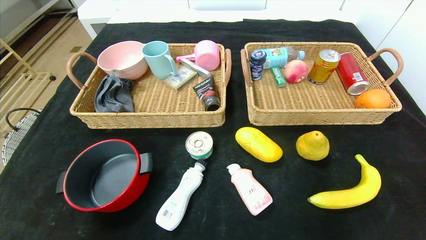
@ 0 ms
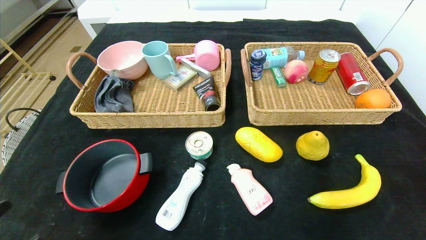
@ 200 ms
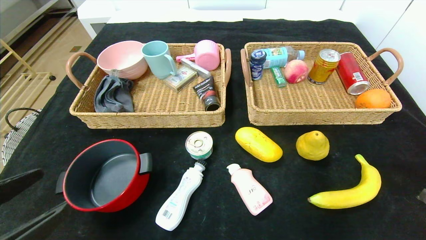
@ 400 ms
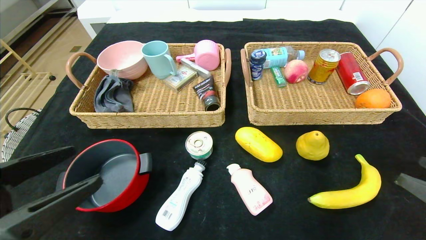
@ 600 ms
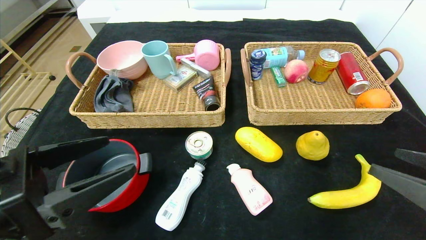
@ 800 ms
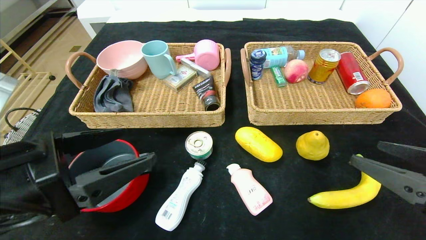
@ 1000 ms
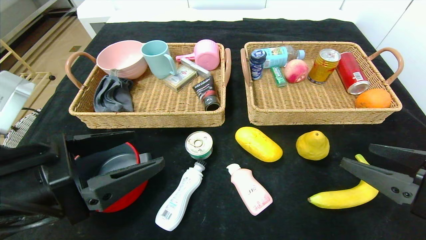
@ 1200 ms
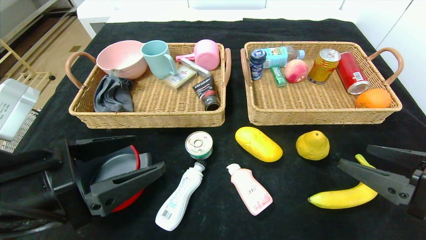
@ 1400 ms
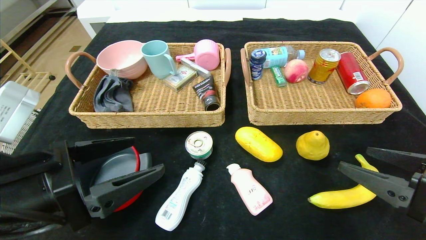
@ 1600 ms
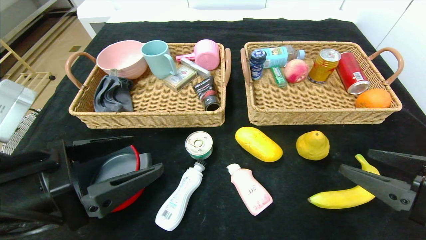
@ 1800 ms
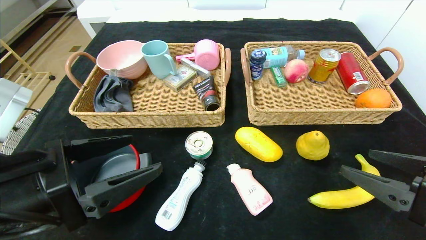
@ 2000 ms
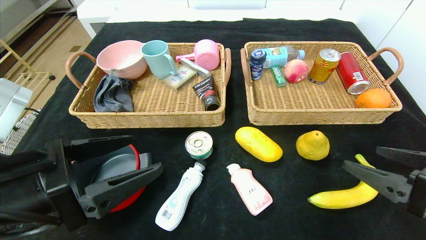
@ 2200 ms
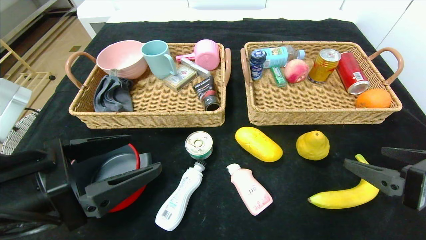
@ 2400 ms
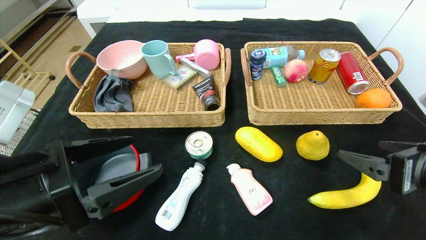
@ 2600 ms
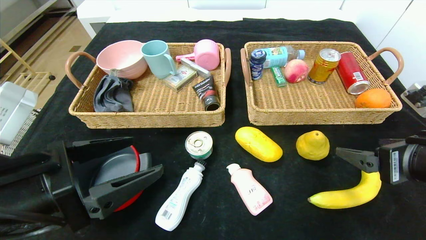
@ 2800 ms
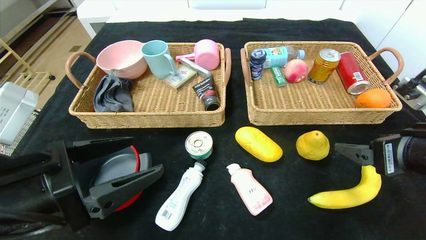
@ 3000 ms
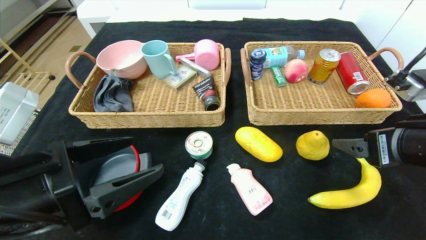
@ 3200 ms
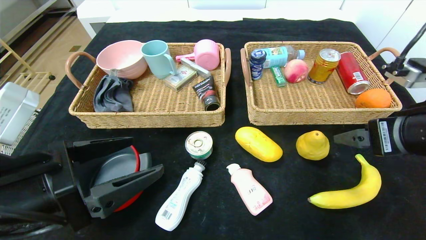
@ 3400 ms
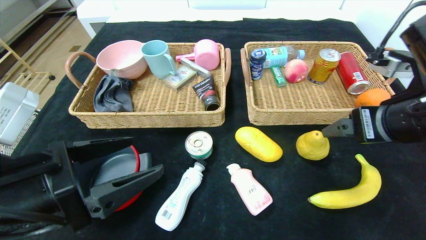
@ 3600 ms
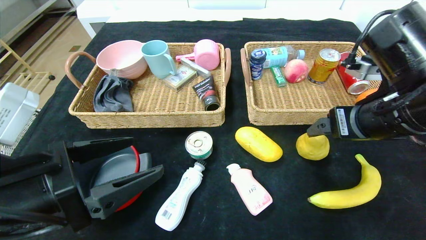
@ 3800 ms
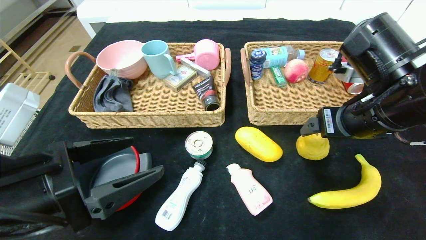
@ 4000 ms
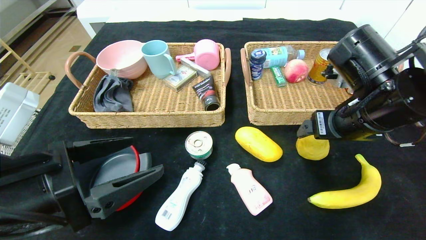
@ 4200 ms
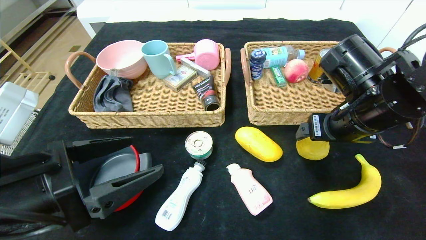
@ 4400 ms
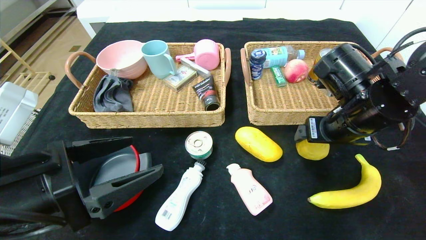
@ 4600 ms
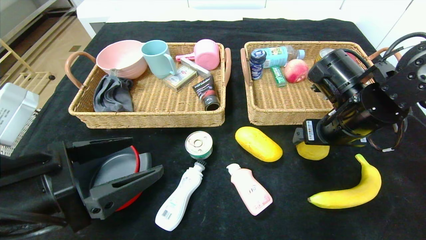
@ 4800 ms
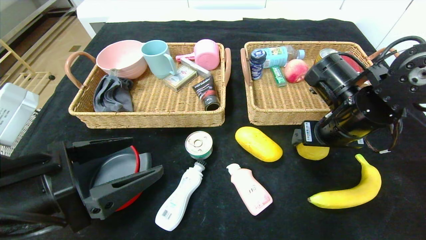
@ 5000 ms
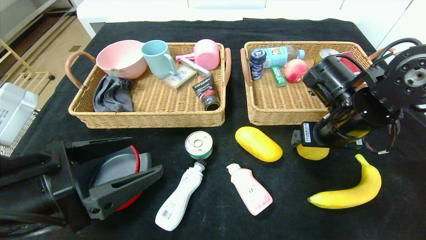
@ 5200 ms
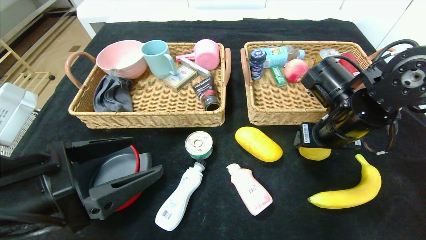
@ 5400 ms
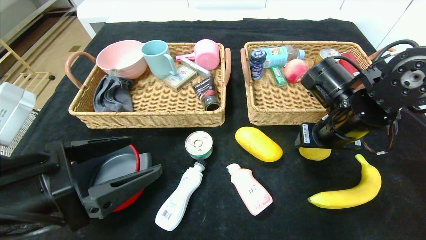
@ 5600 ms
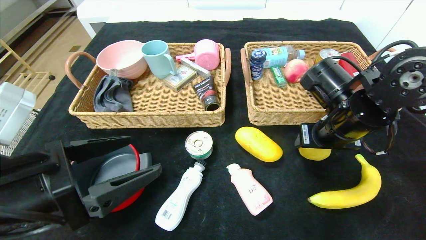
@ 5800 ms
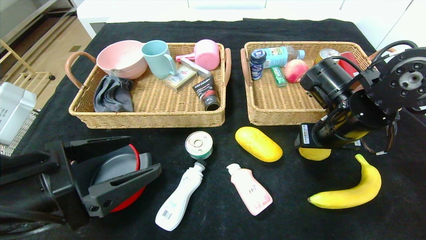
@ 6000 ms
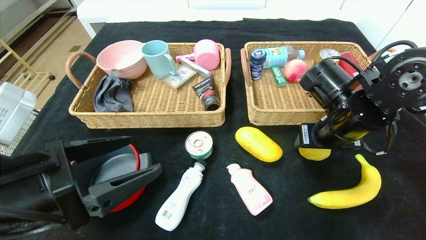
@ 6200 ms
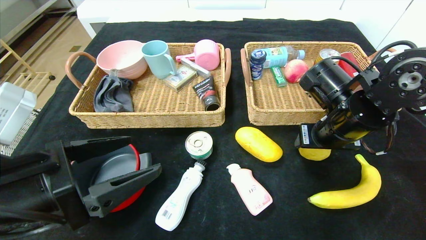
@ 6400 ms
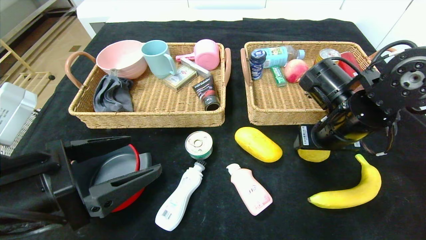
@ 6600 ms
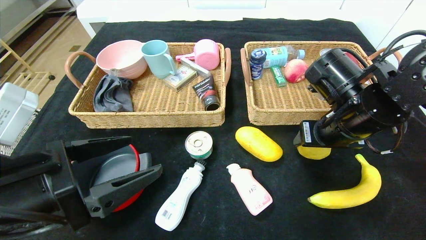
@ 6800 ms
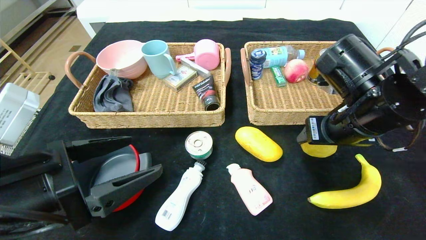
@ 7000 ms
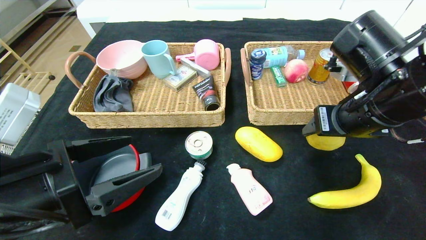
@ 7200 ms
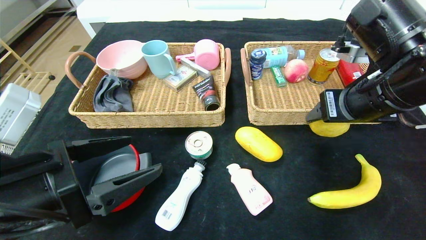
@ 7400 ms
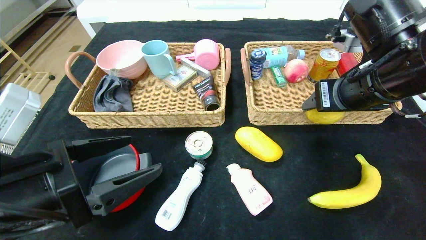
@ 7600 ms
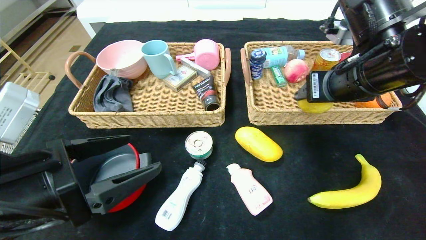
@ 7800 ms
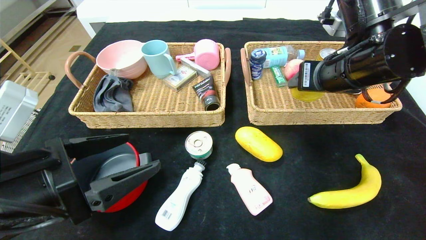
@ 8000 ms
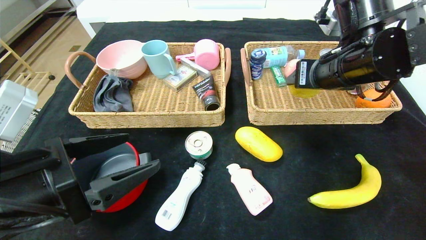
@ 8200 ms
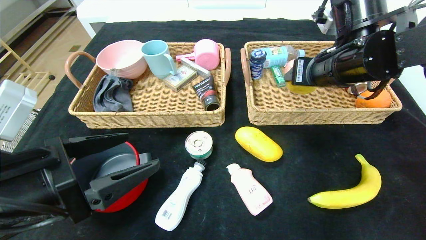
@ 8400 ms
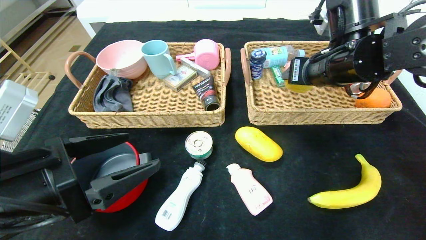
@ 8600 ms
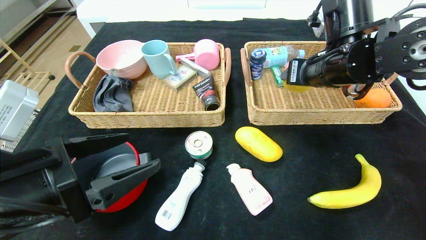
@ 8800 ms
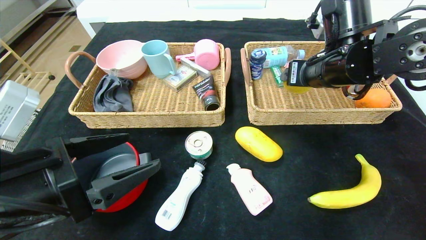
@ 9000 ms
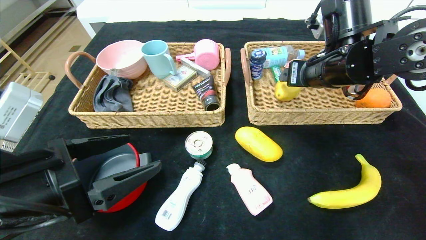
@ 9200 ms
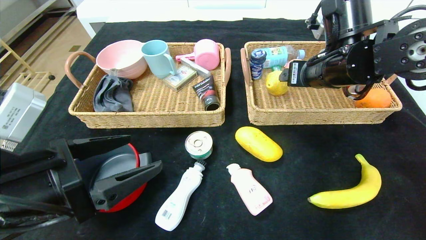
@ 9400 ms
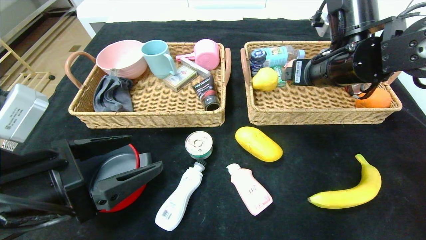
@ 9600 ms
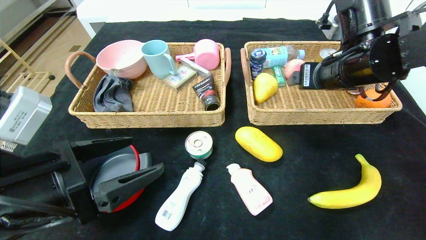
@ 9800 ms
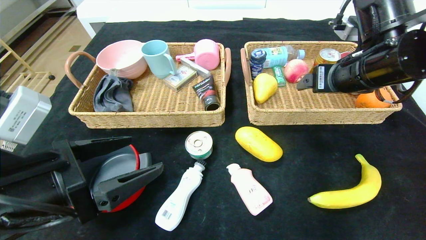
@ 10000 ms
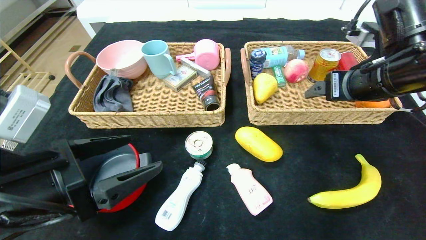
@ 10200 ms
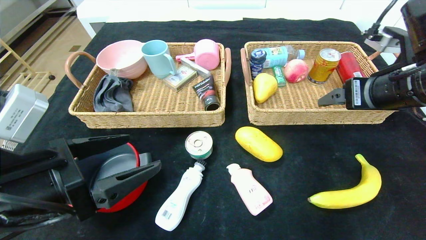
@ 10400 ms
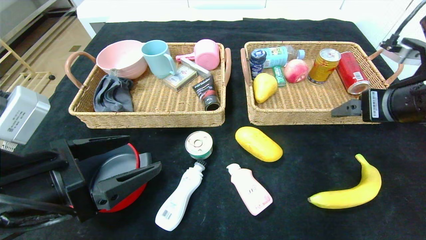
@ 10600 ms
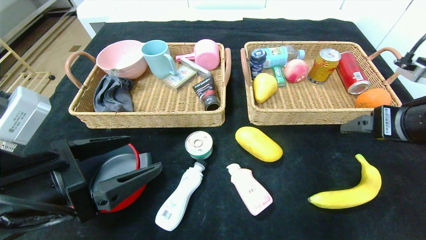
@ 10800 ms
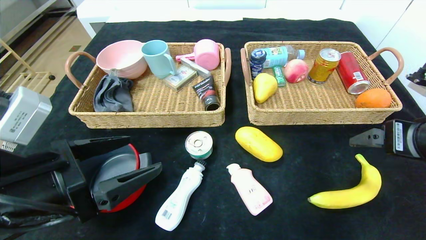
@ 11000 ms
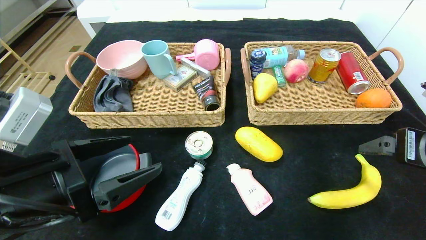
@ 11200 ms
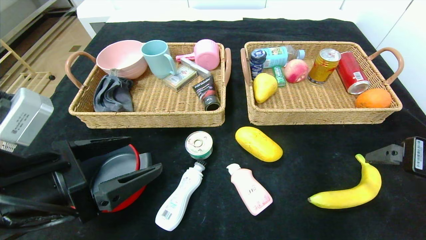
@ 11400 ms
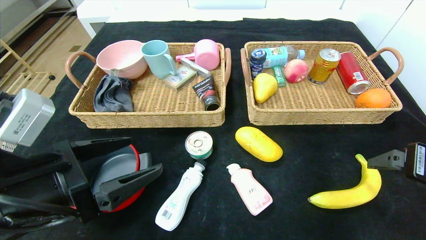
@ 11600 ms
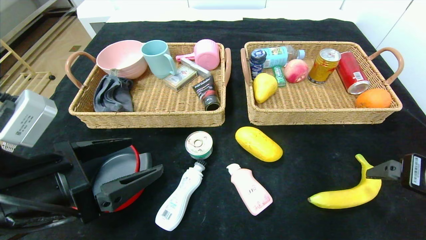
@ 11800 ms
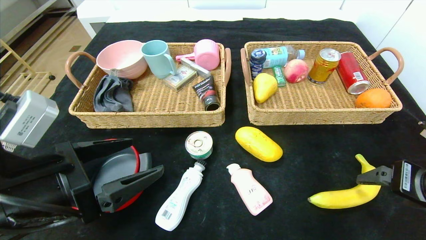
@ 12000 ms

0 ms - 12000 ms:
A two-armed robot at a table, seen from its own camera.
Step, 0 ms - 9200 ms: Grasp the pear and put it in the right basket.
0 ms - 1600 ms: The left gripper shifts some 20 cm forward, upward and to the right. The right gripper shifts some 15 cm forward and to the left.
1600 ms - 3000 ms: The right gripper changes place by approximately 5 cm.
3000 ms - 4400 ms: The right gripper travels forward and to the left by about 10 cm.
4400 ms - 6000 ms: The right gripper closes its fingers.
6000 ms - 7600 ms: The right gripper goes about 10 cm upward.
7600 ms - 9000 ms: The right gripper moves forward, some 10 cm.
9000 ms - 10400 ms: The right gripper shifts some 10 cm backward and to the right.
10400 ms - 12000 ms: The right gripper is displaced backward and downward by about 15 cm.

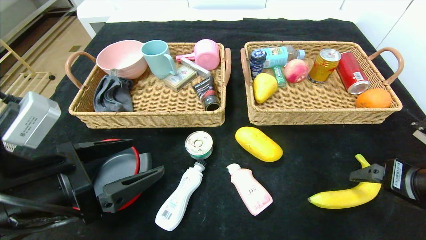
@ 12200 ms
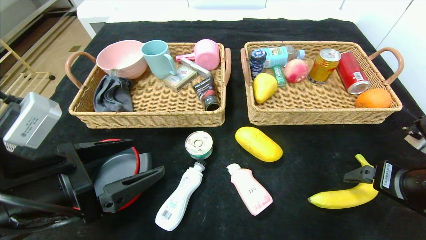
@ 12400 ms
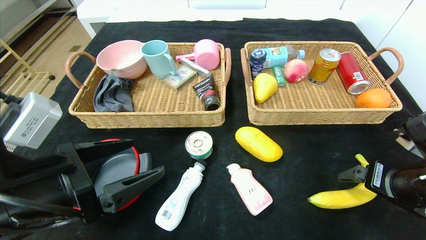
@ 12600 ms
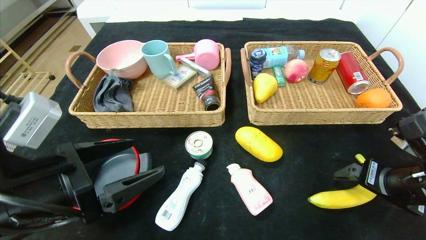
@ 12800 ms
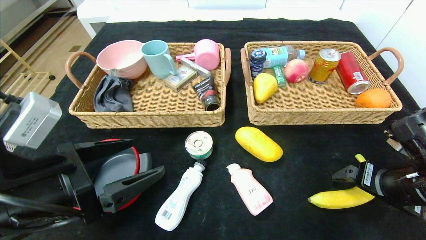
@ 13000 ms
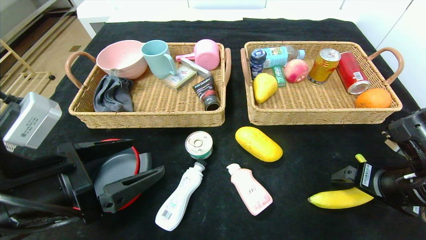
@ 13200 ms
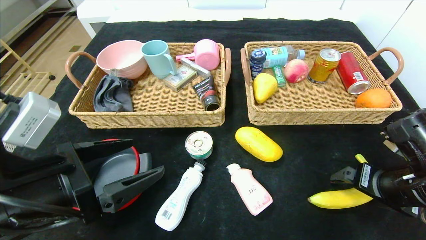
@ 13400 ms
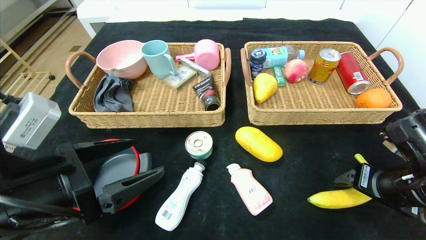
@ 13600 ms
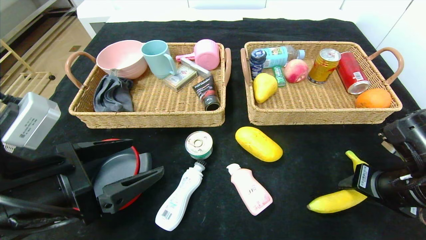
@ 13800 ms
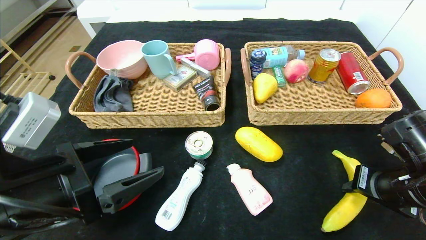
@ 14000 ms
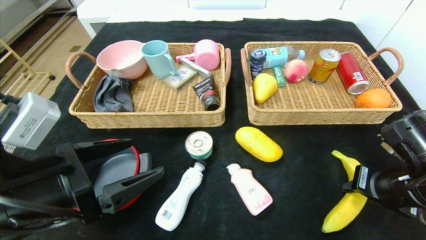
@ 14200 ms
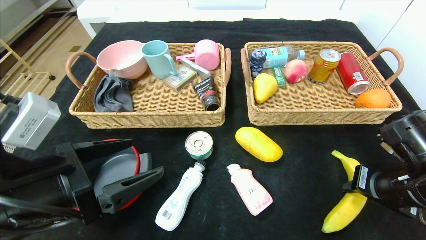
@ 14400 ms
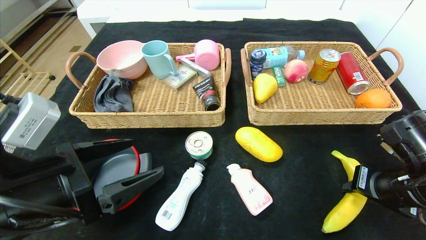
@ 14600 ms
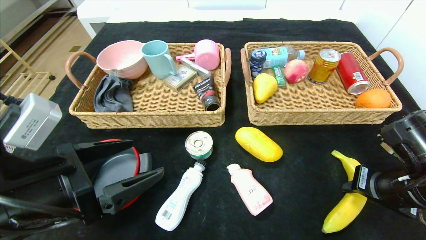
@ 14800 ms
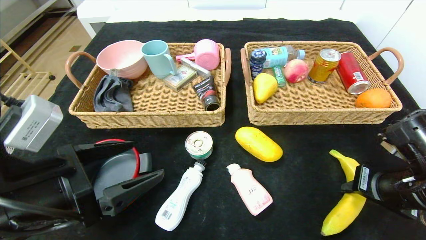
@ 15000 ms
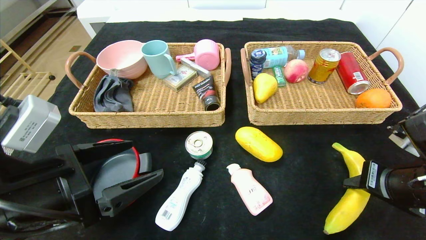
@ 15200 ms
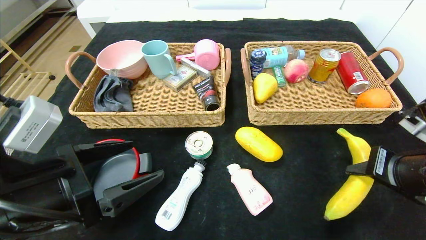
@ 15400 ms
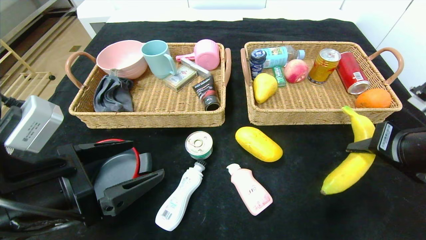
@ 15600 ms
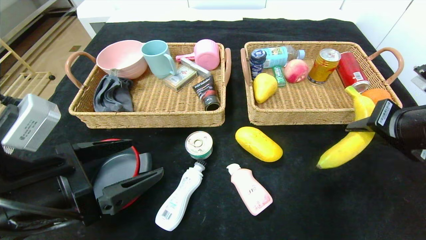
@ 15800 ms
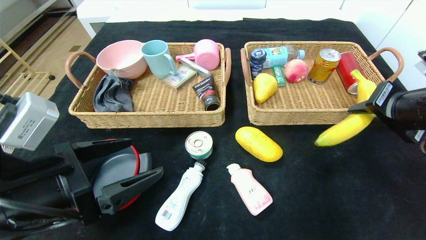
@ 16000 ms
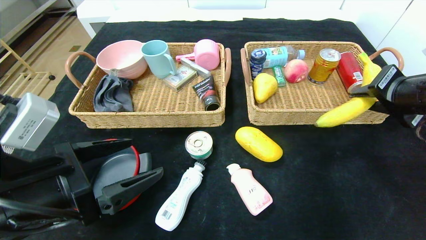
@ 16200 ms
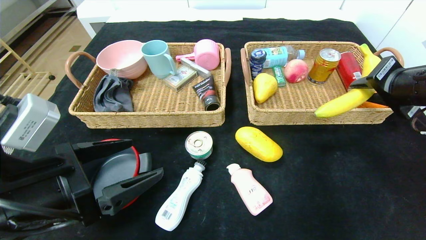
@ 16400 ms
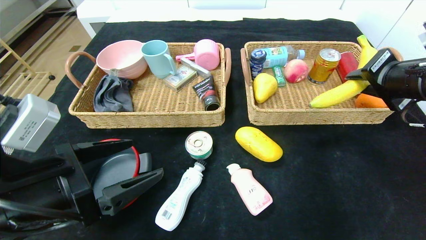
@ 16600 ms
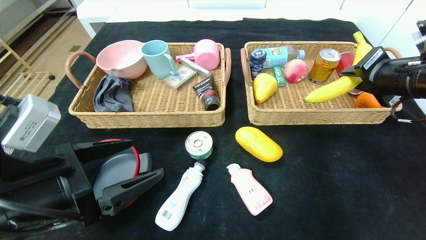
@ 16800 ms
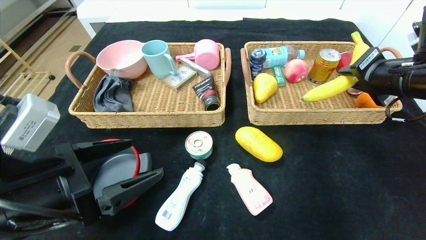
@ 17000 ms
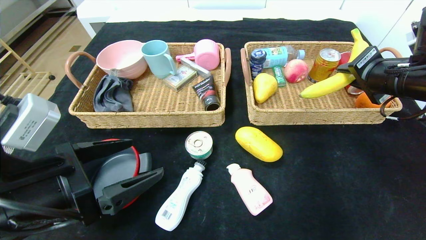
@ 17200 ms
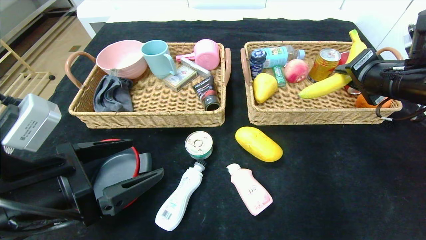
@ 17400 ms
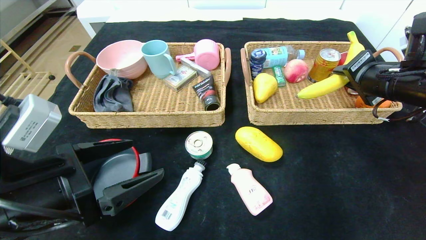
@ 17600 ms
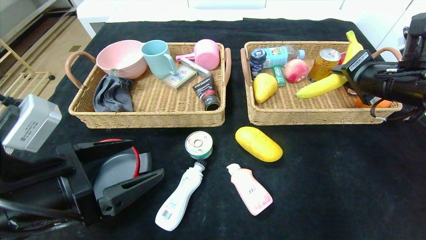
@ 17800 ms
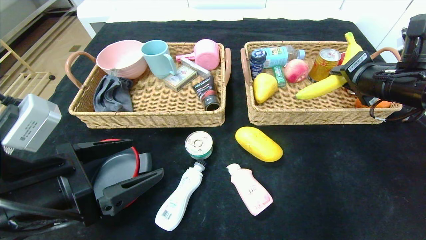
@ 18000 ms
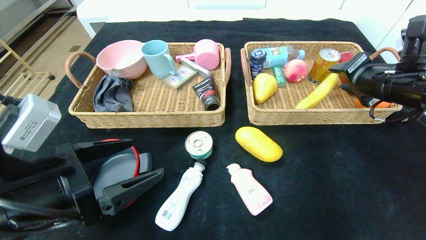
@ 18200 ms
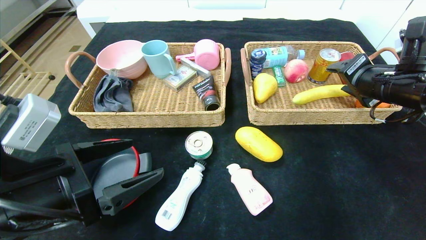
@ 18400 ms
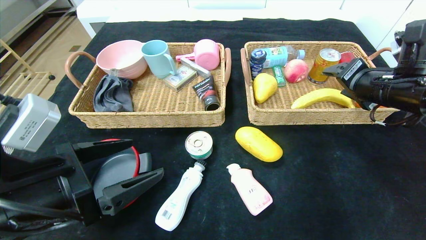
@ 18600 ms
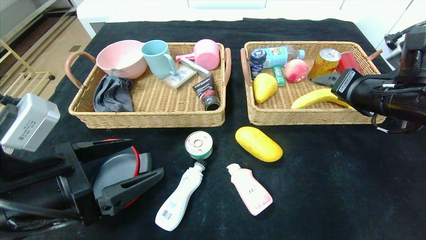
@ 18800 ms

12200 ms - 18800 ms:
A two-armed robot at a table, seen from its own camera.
Step, 12200 ms - 18400 ms: Grasp the banana and put it in the right basket.
12200 ms - 13800 ms: The right gripper ends up approximately 5 cm from where it was, and closes.
13800 ms - 15400 ms: There are only small adjustments of the grippers.
15400 ms - 17200 ms: The right gripper goes some 15 cm forward and upward.
17200 ms - 18800 ms: The right gripper opens its fingers.
